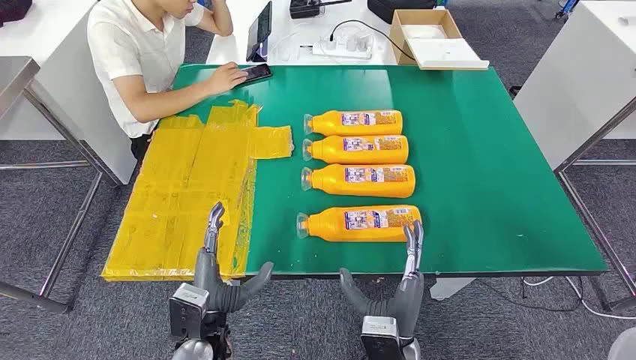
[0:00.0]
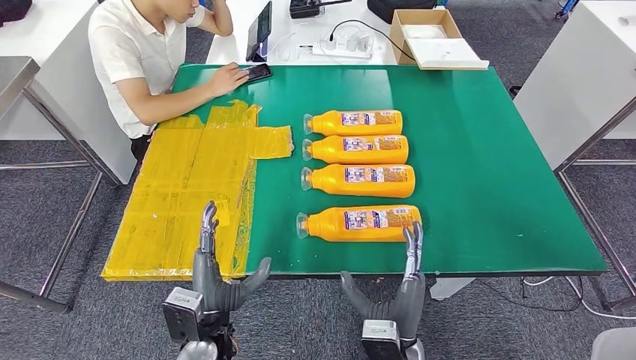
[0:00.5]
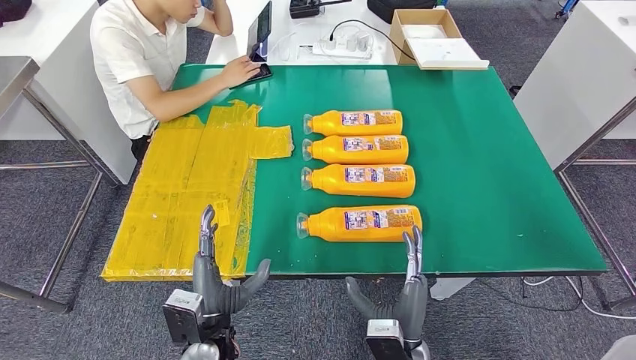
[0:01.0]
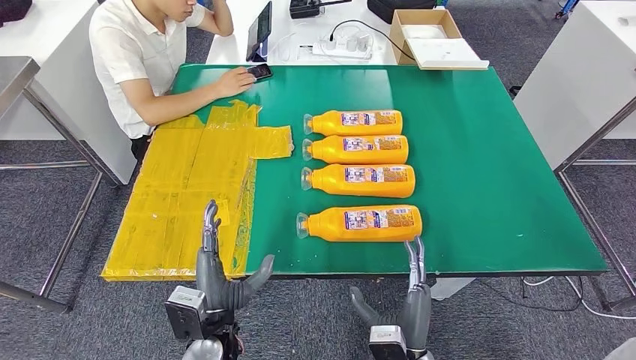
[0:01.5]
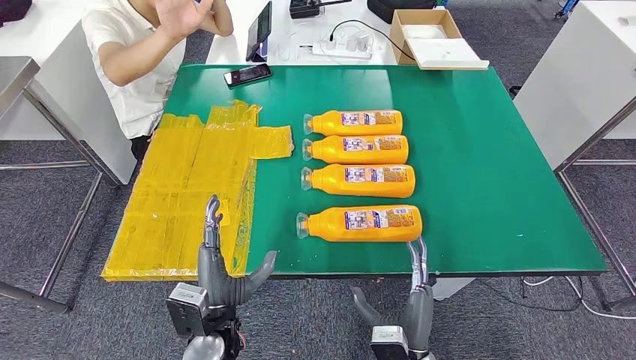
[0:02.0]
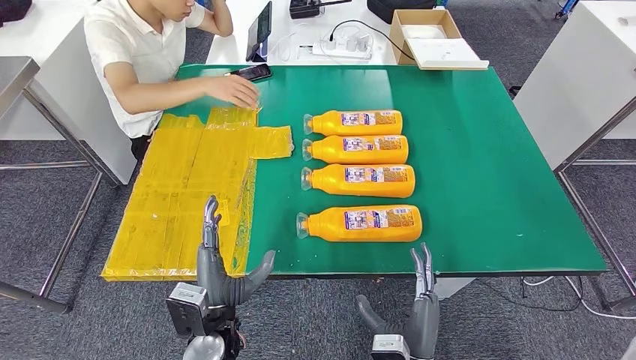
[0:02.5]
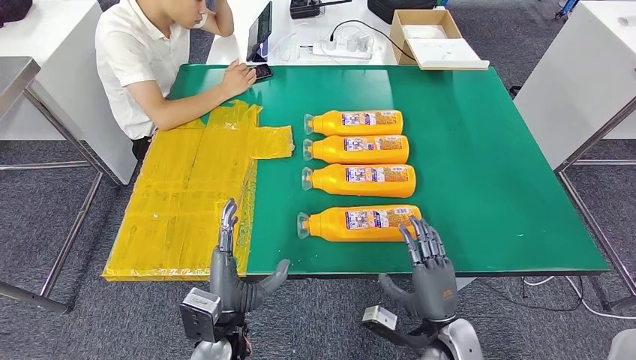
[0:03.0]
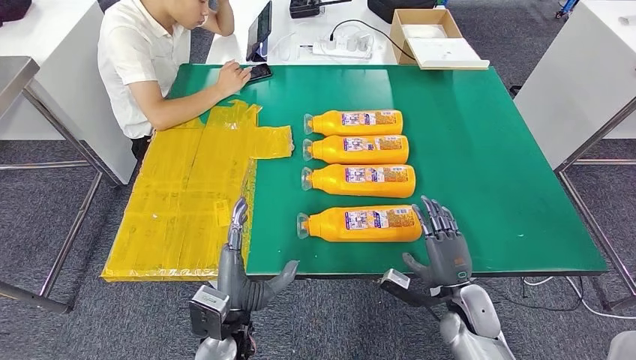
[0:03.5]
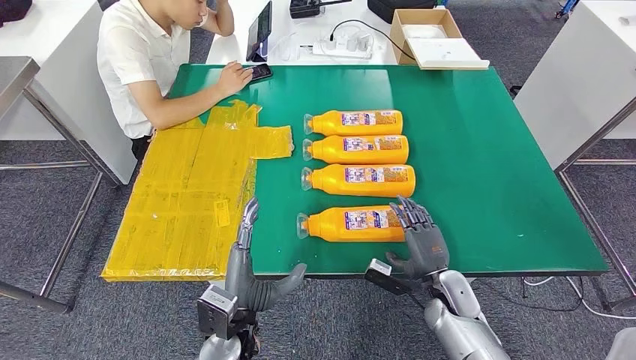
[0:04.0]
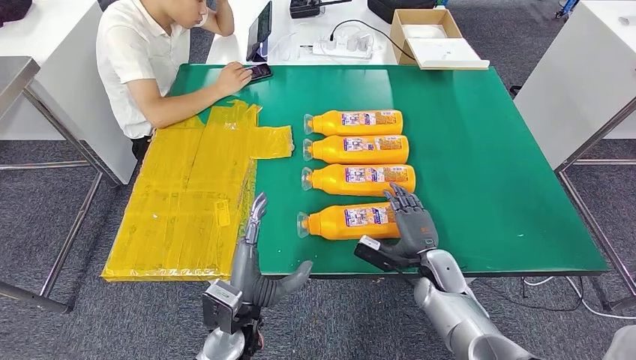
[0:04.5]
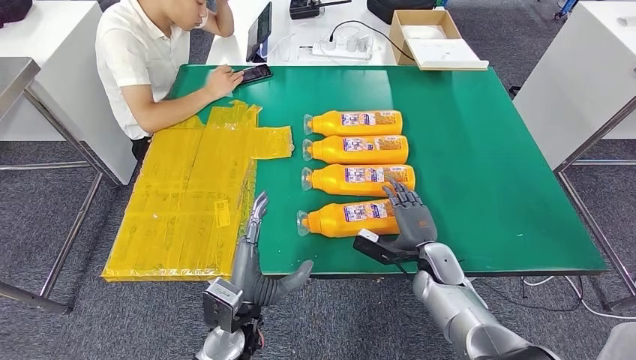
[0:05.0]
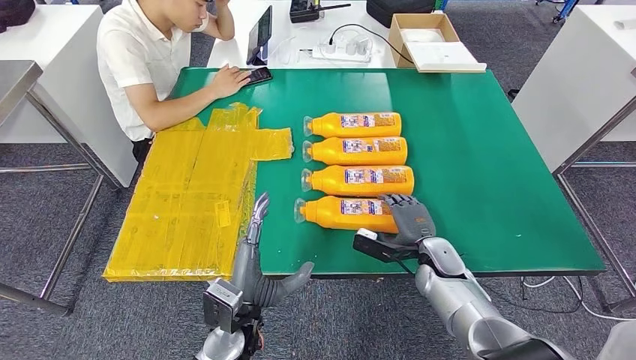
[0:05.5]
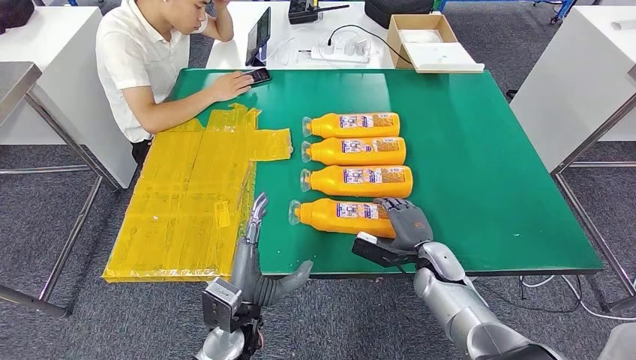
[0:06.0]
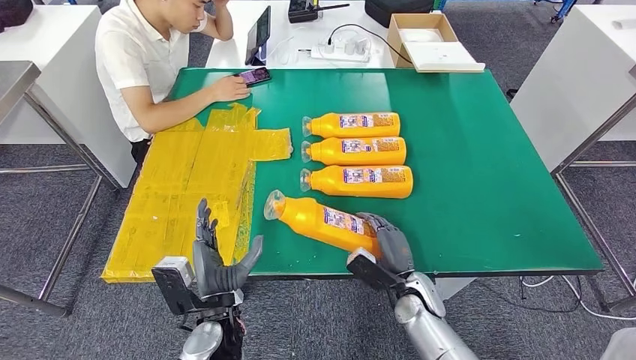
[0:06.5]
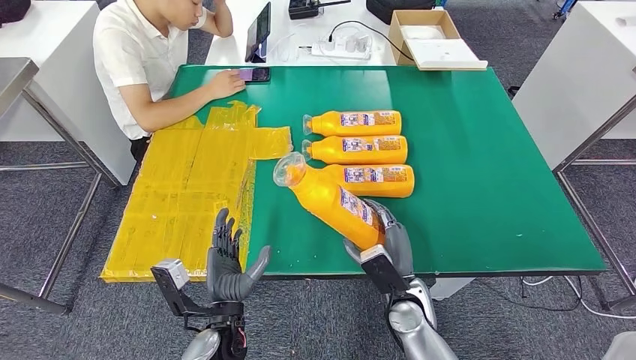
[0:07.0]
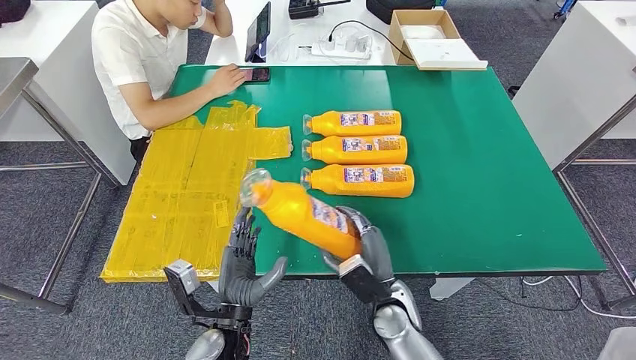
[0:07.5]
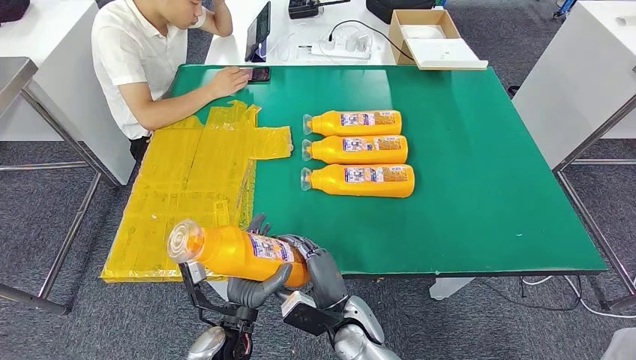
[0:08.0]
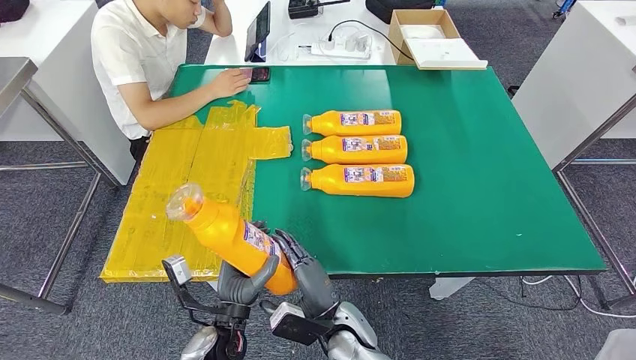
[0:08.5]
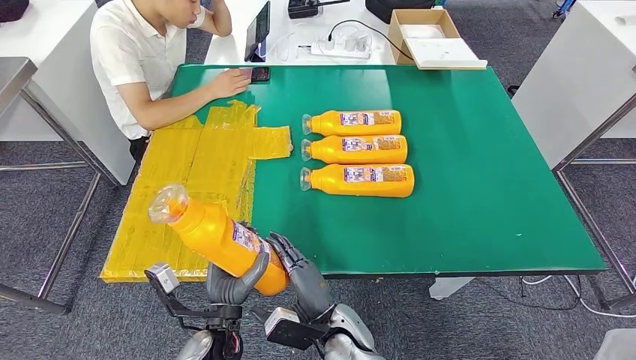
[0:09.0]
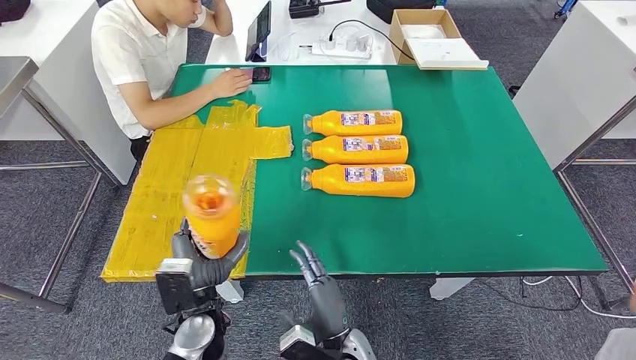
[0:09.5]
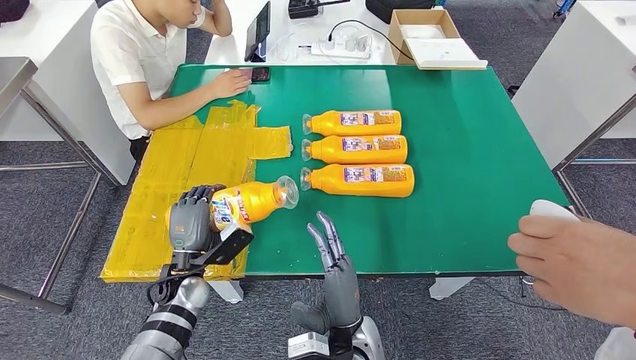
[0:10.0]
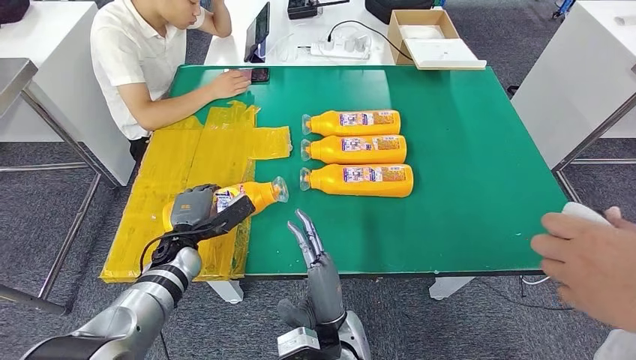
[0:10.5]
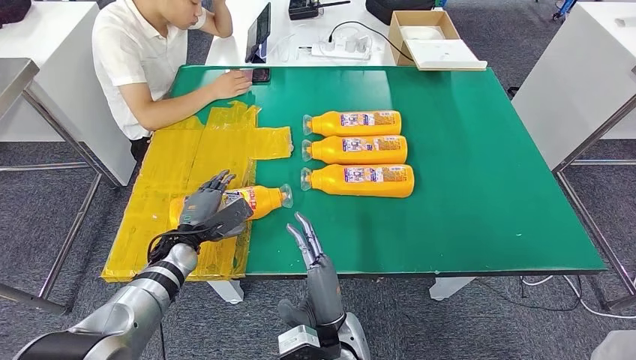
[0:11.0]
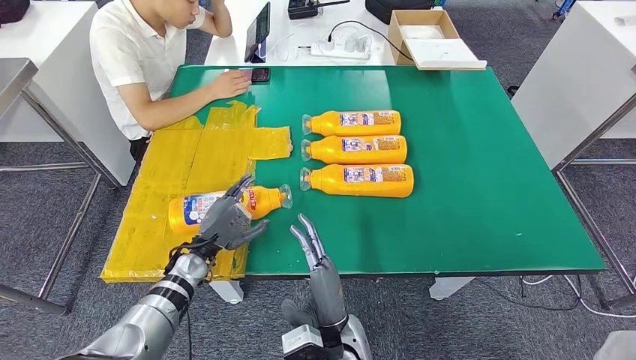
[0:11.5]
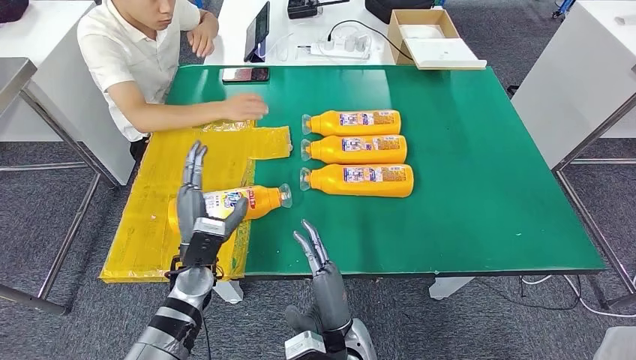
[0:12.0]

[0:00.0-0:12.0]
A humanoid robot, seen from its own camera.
Step, 0:00.0 to 0:08.0: Take the bottle from the table.
0:02.0 to 0:04.0: The right hand is displaced forward and to the right by some 20 cm.
0:04.0 to 0:06.0: The right hand moves roughly 5 cm.
0:08.0 to 0:10.0: The left hand moves to the left and forward, some 15 cm; the right hand shifts by some 5 cm.

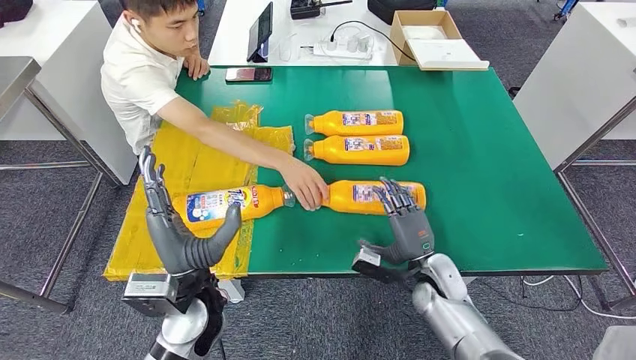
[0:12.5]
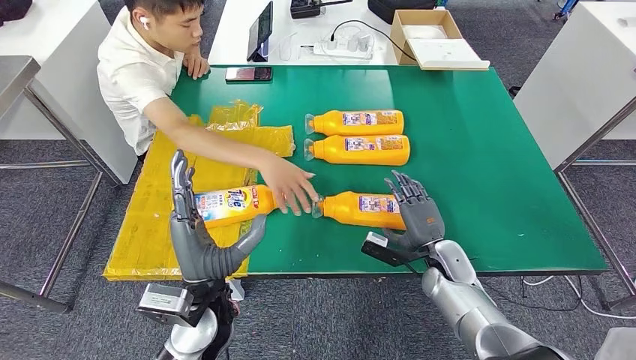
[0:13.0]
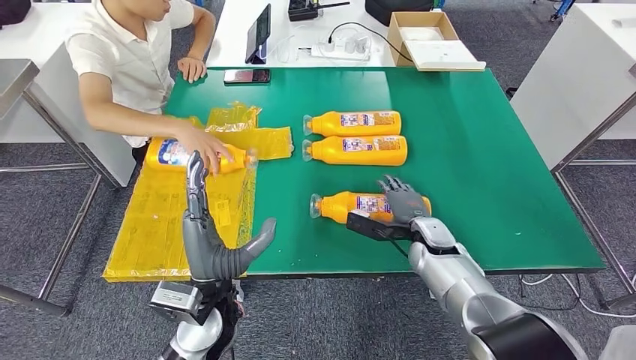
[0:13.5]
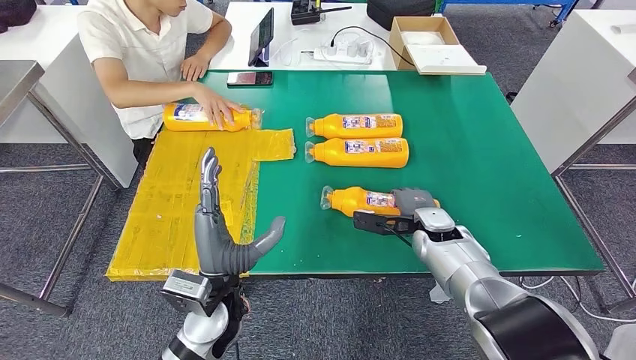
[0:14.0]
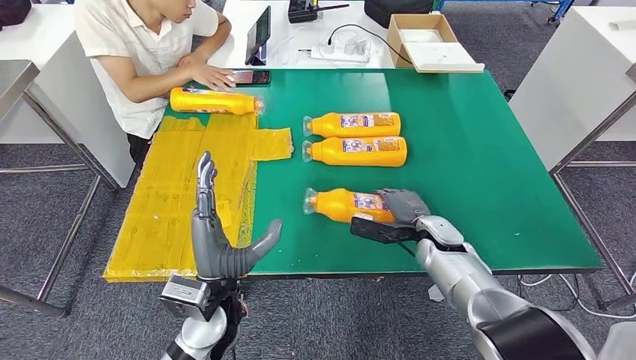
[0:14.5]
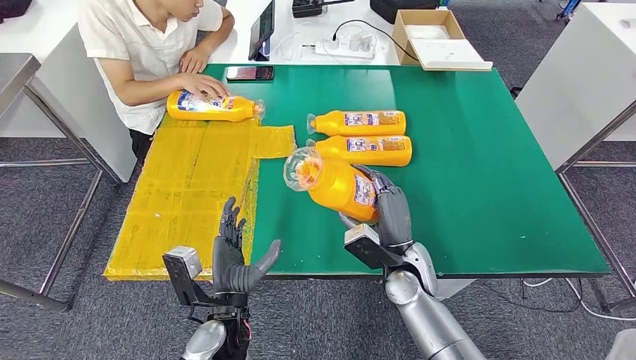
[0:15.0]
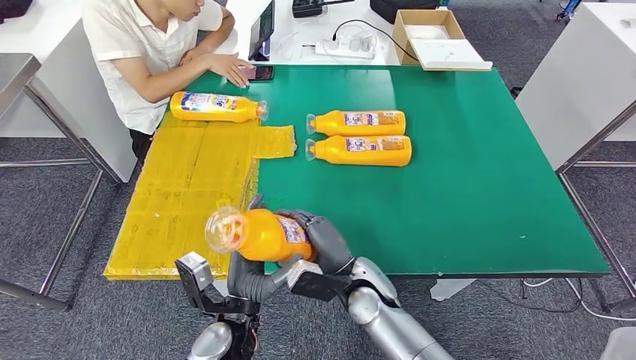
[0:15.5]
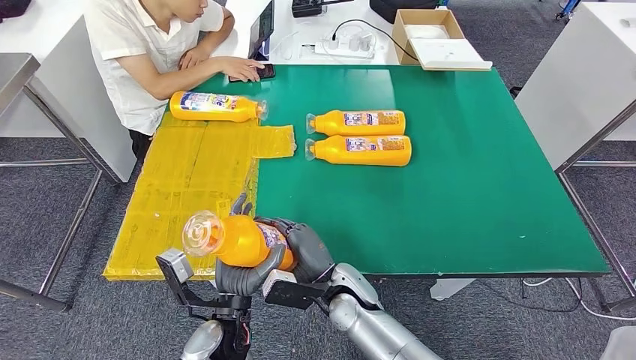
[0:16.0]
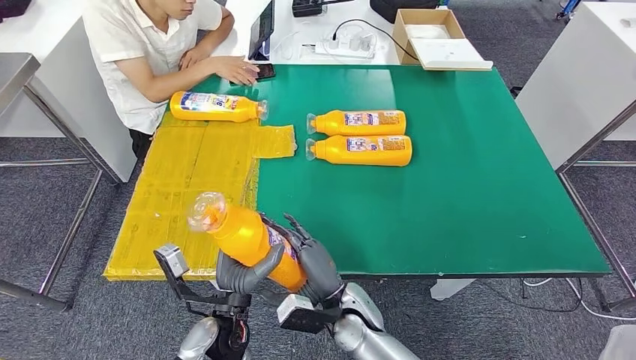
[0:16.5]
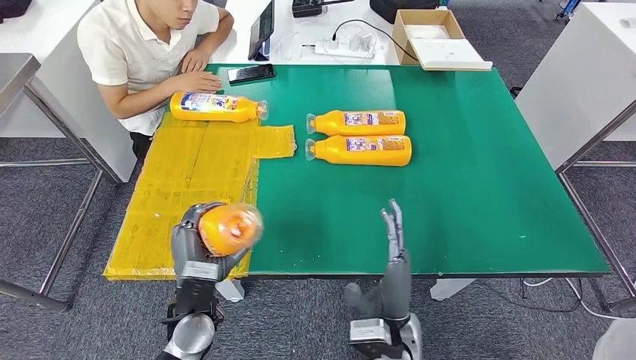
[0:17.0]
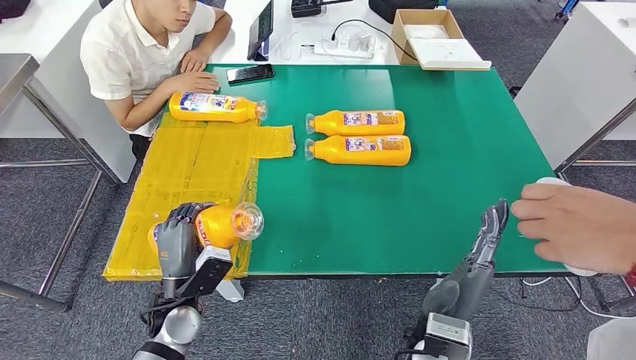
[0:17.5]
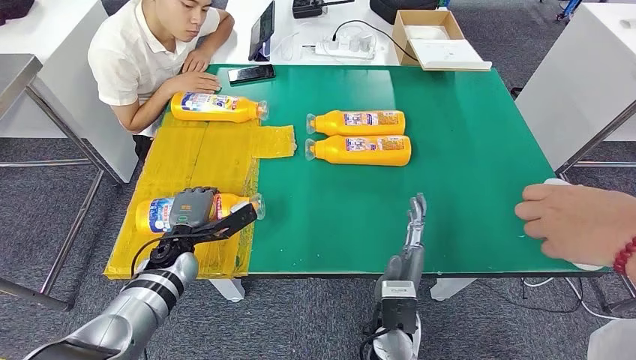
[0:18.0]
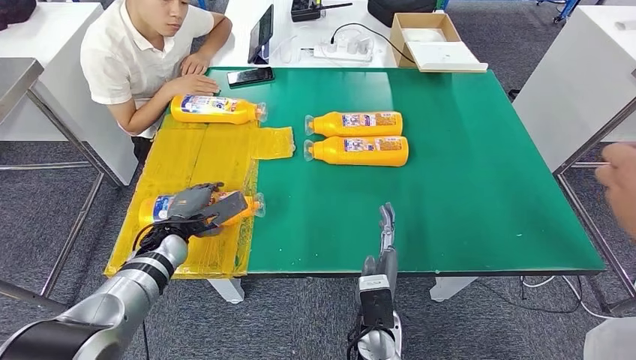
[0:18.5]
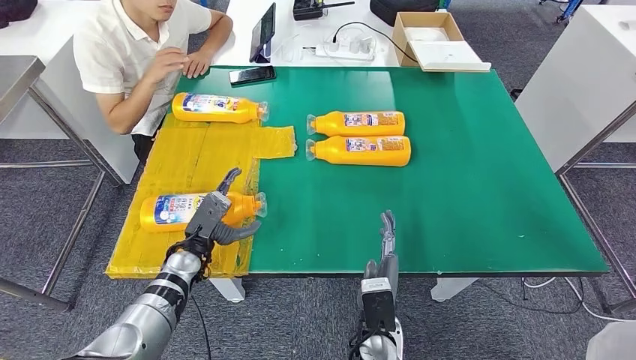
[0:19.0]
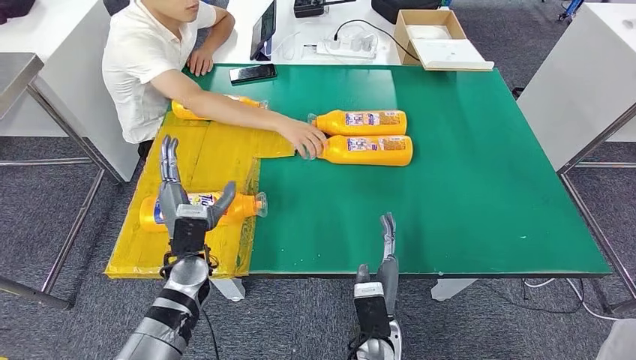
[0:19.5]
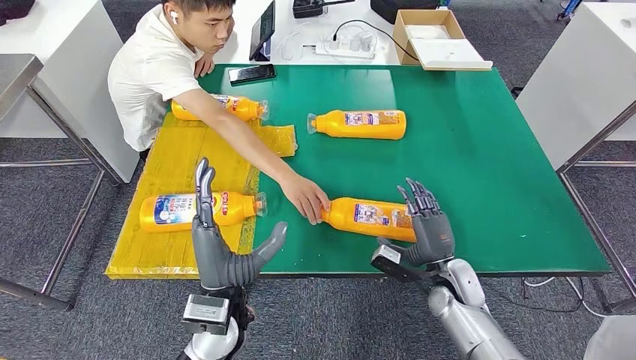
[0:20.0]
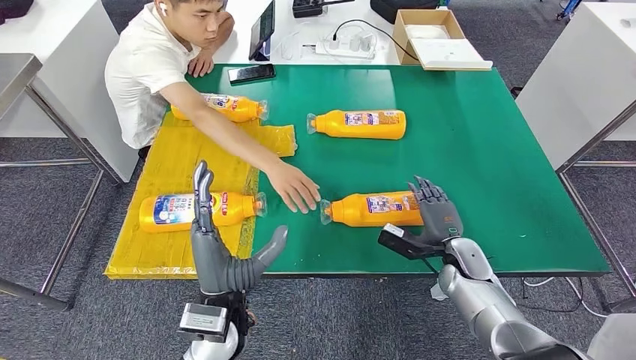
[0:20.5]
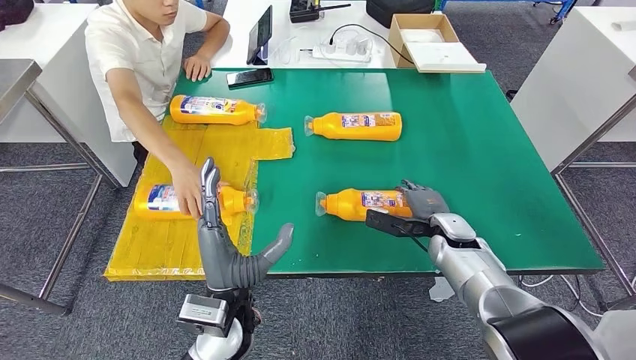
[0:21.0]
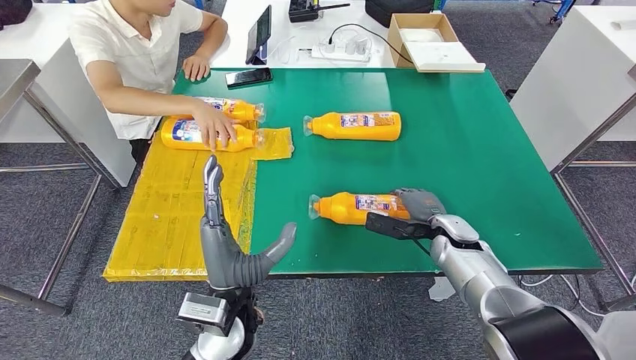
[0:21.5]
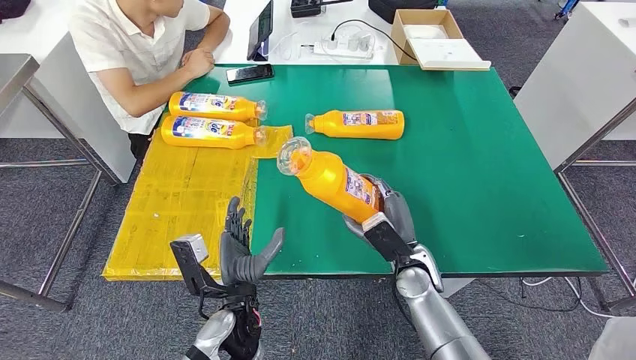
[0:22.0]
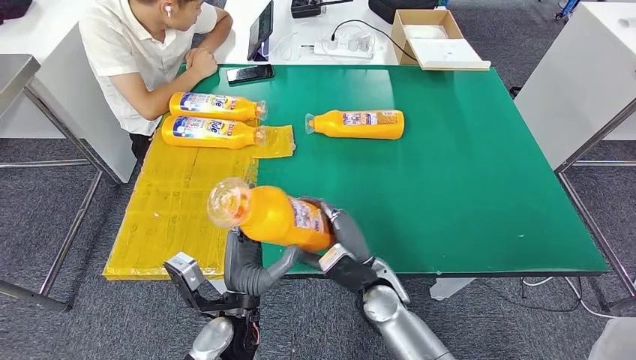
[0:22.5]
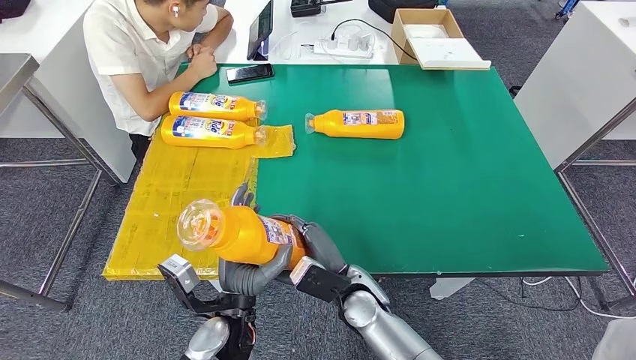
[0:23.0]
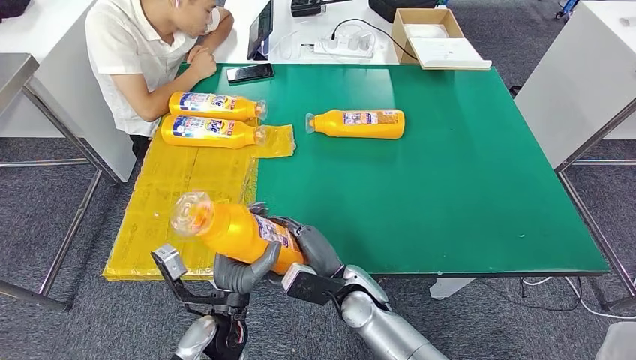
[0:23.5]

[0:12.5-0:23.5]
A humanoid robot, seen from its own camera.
Step, 0:13.5 to 0:16.5: Pick up the bottle from the table.
Step, 0:17.0 to 0:21.5: Flip the bottle to face forward.
